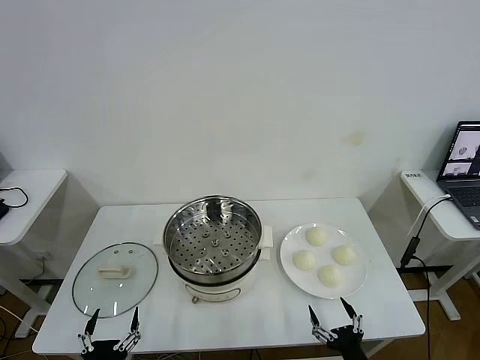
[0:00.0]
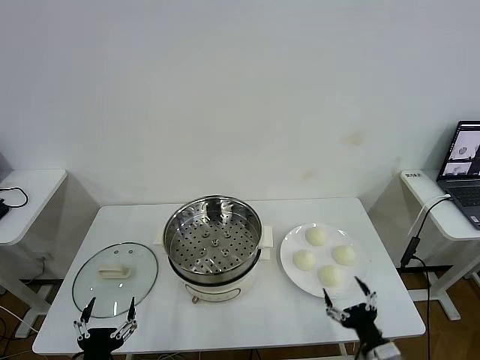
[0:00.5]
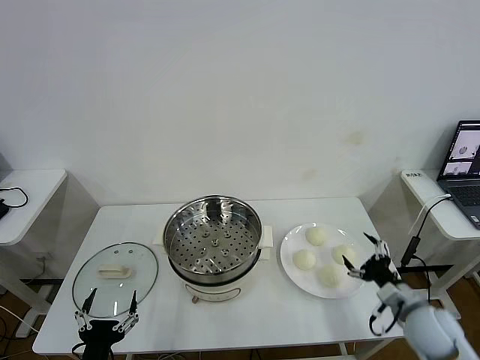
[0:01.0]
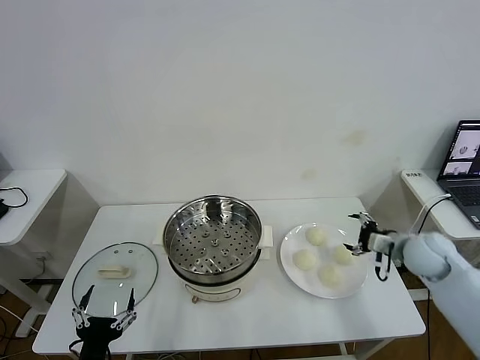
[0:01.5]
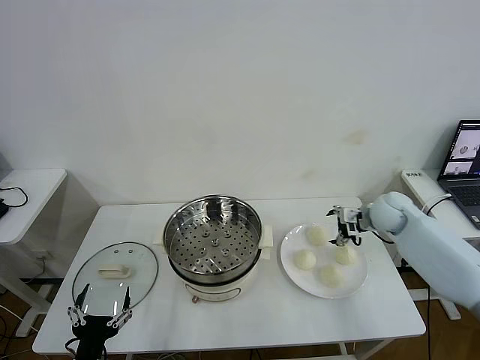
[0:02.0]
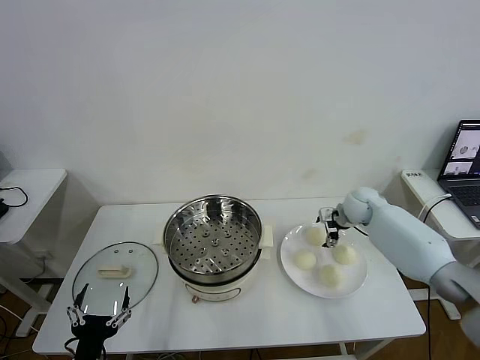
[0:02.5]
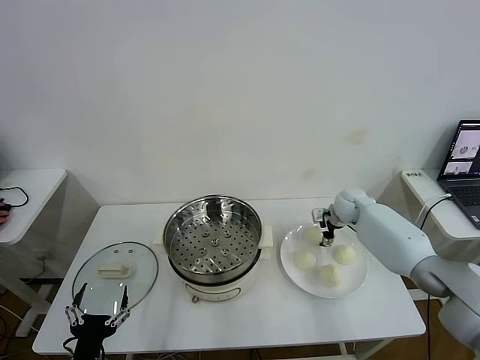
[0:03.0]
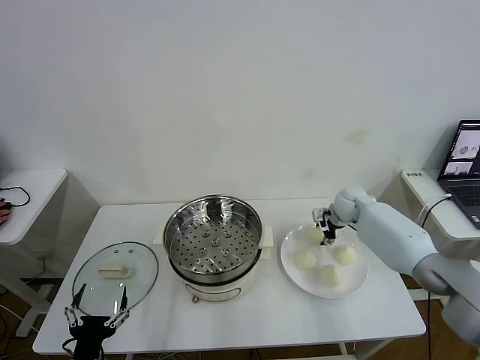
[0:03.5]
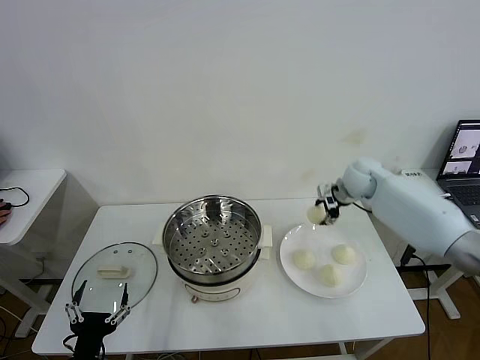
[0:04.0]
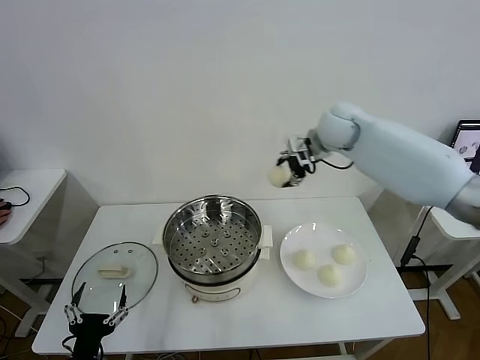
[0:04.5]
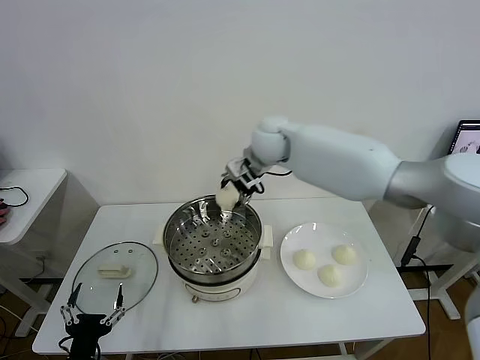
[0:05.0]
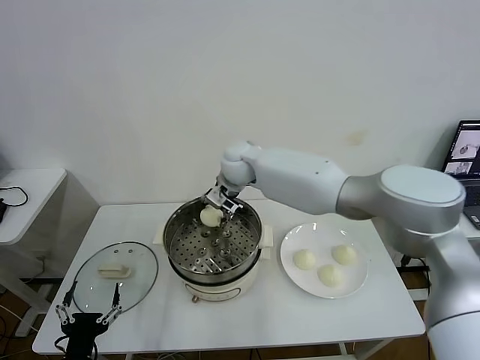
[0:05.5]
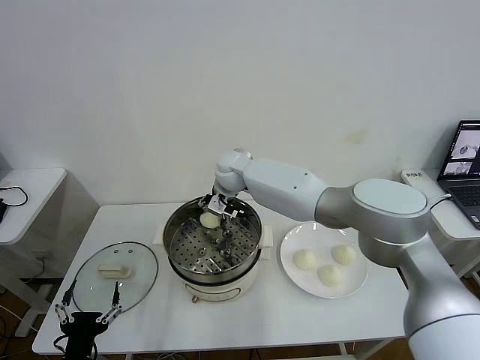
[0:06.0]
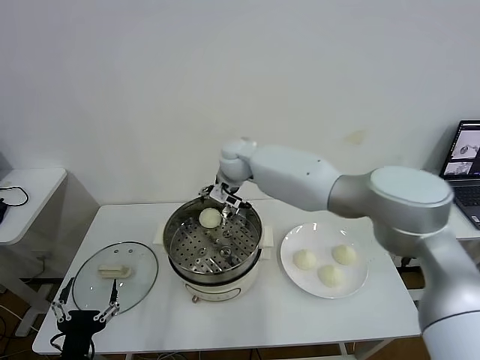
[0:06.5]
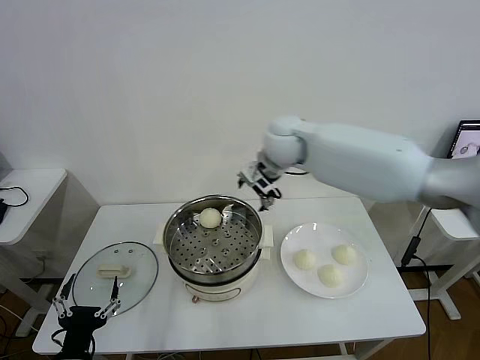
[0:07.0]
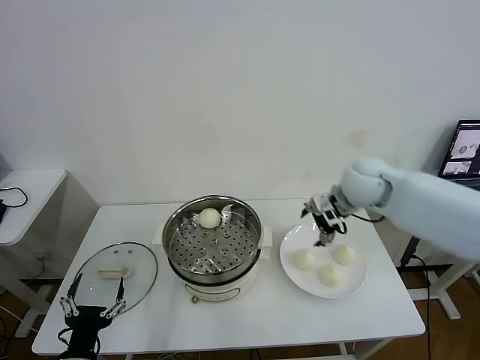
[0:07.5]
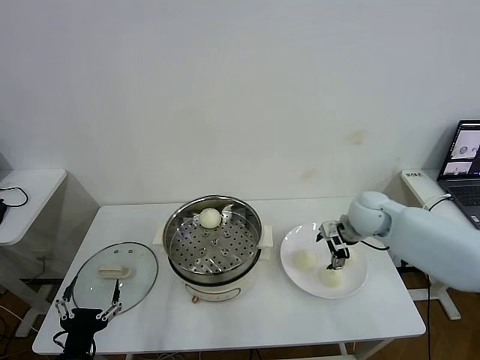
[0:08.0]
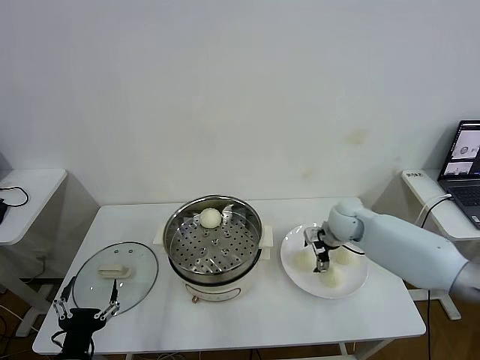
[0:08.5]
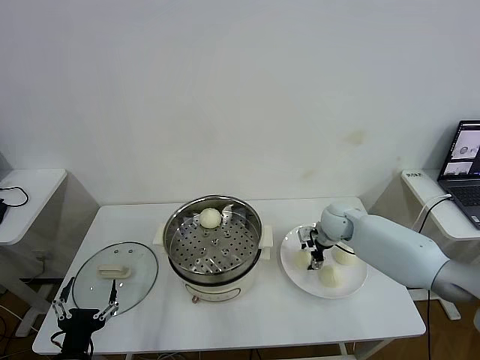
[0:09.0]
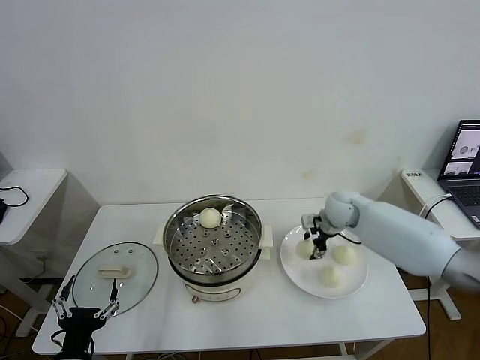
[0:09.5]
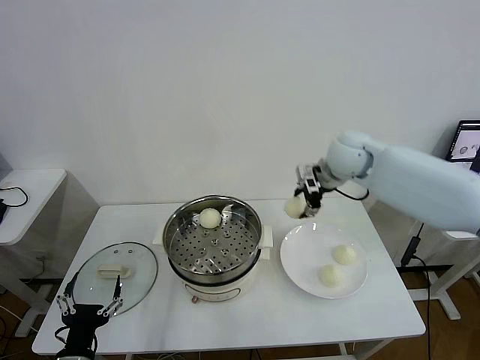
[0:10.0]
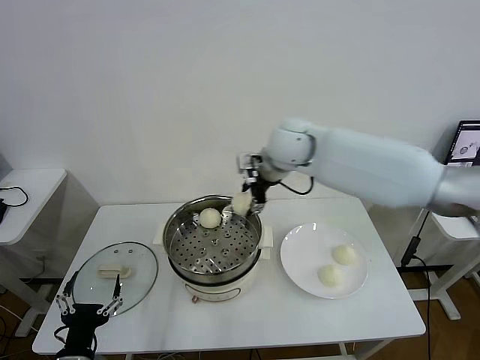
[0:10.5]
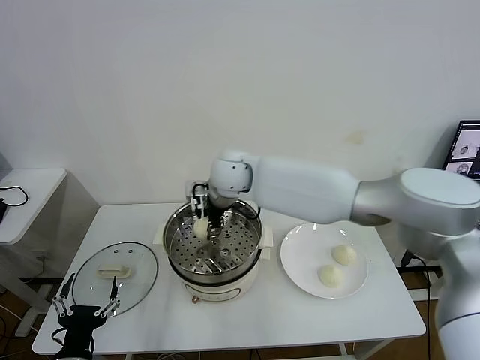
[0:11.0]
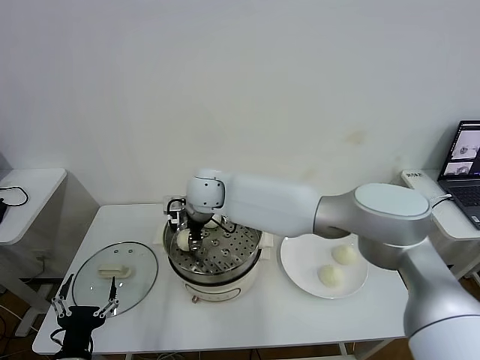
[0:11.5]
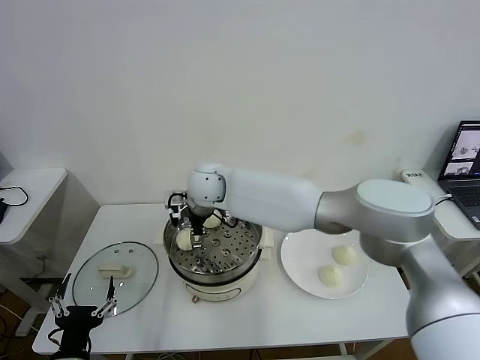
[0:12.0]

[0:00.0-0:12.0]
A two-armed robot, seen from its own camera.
Task of the whole recording: take steamed baozi put them in steamer then cover it.
Step, 0:00.0 to 0:03.0: Grasp the baozi in the plate with right gripper.
Step, 0:03.5 to 0:06.0: Place the baozi on the steamer with right gripper.
Step, 0:06.5 to 0:09.0: Grasp the baozi in the plate with right gripper.
0:02.0 to 0:04.0: The right gripper goes about 10 cm forward, to the left and upward, and closes up.
0:04.0 to 0:06.0: The right gripper travels to the left by approximately 30 cm.
0:06.0 to 0:08.0: The right gripper is displaced to the right by some 30 cm, and opens up.
0:08.0 to 0:10.0: The right gripper heads upward, to the left and forward, covering roughly 15 cm, and closes.
0:10.0 to 0:12.0: The right gripper moves to the left, roughly 30 cm, and opens.

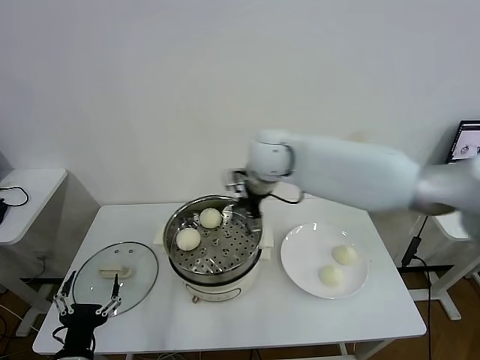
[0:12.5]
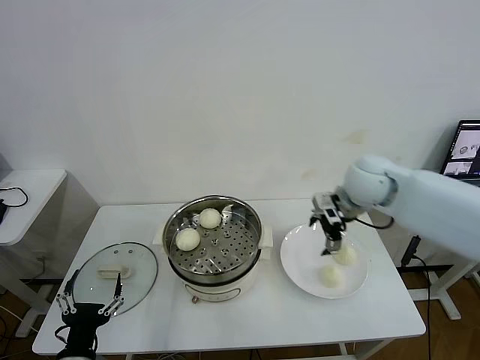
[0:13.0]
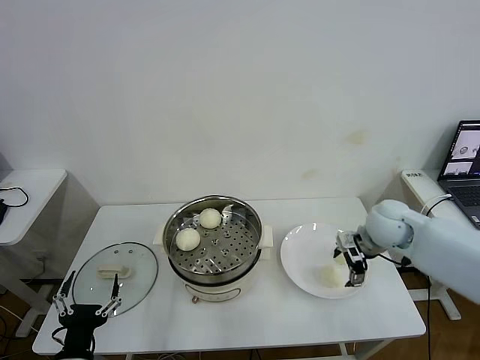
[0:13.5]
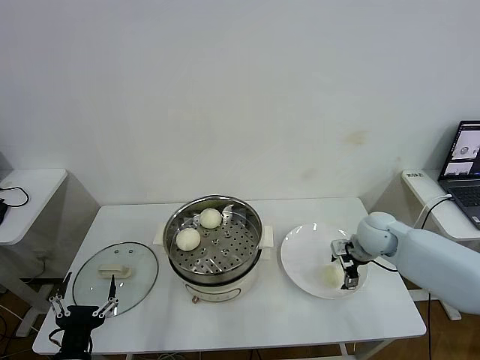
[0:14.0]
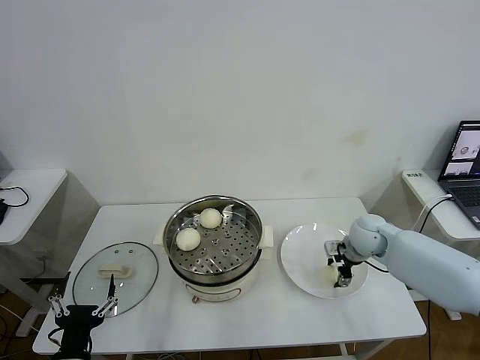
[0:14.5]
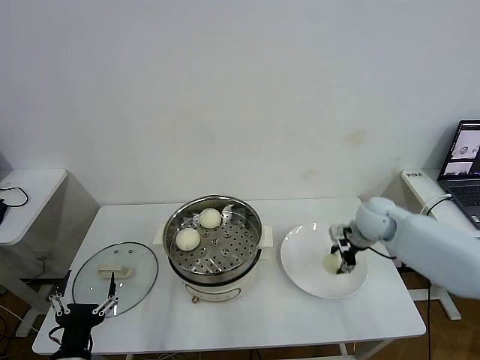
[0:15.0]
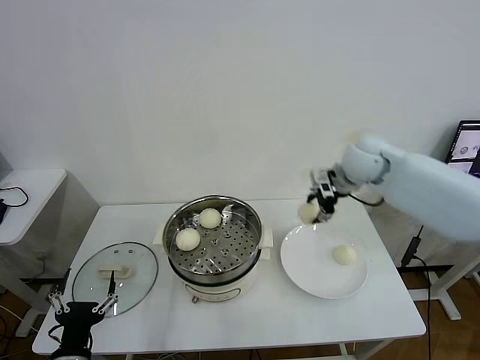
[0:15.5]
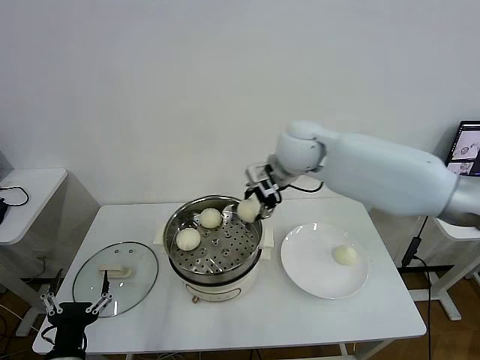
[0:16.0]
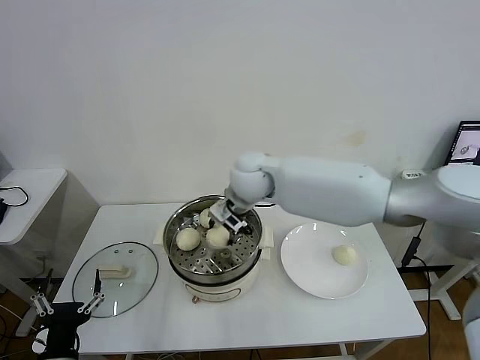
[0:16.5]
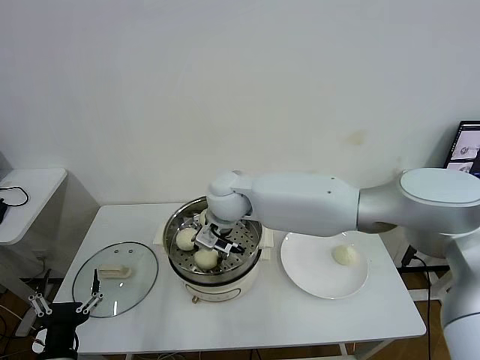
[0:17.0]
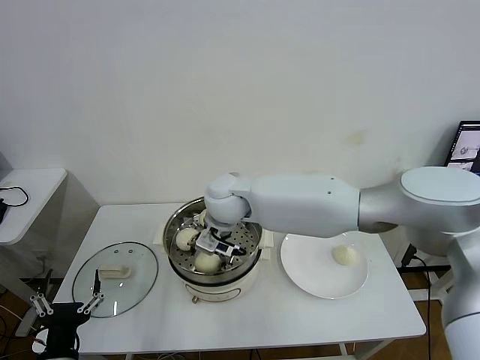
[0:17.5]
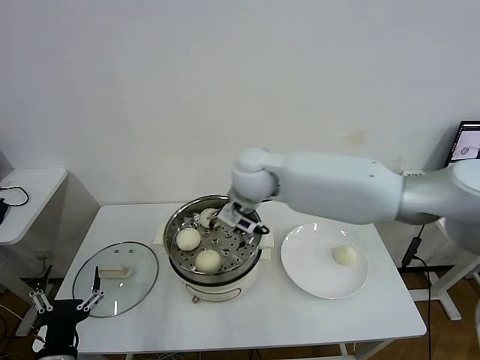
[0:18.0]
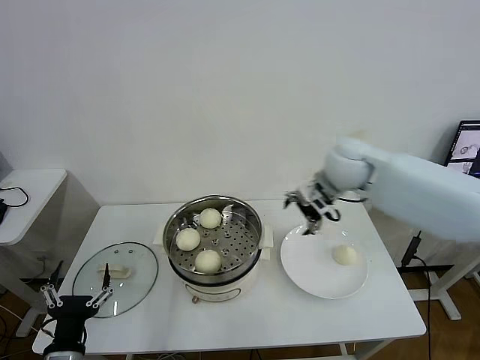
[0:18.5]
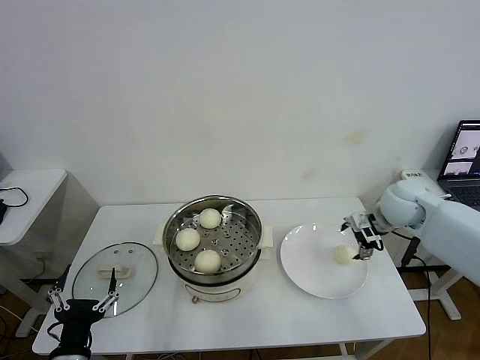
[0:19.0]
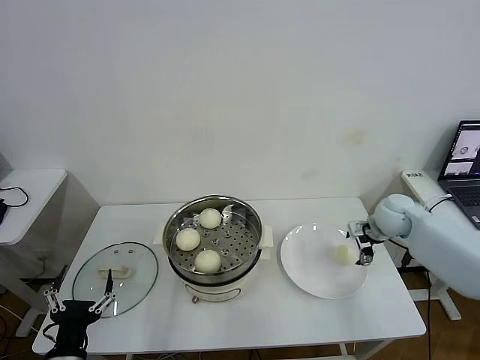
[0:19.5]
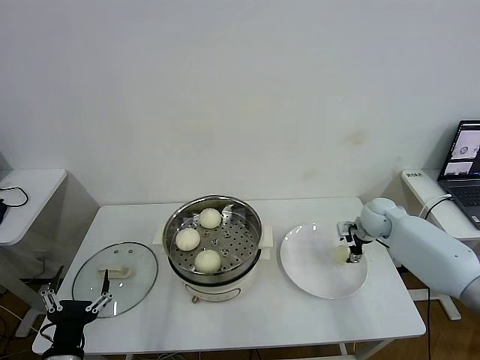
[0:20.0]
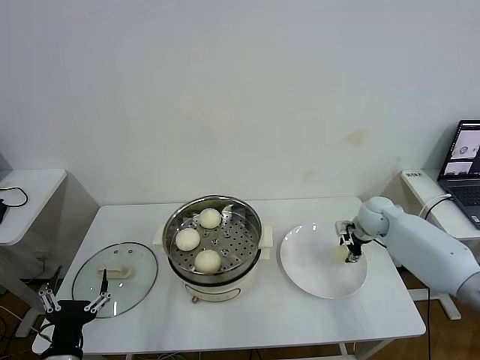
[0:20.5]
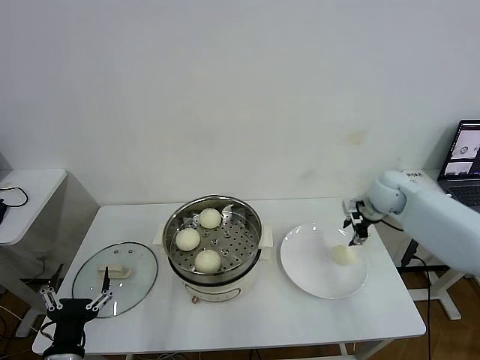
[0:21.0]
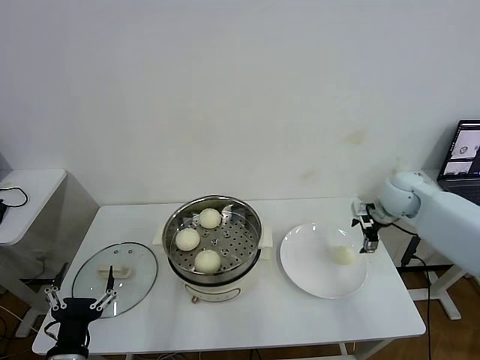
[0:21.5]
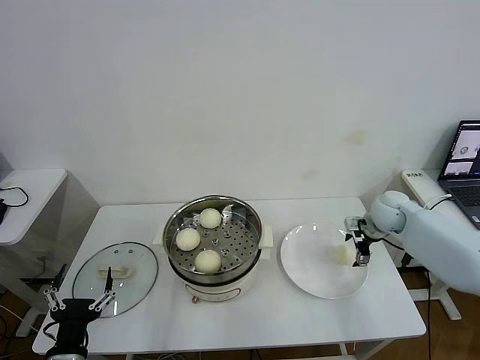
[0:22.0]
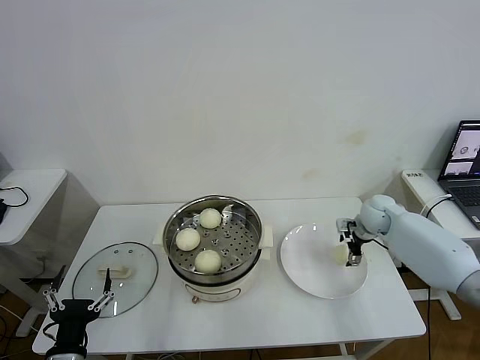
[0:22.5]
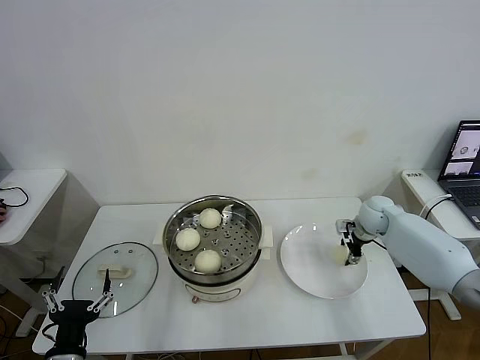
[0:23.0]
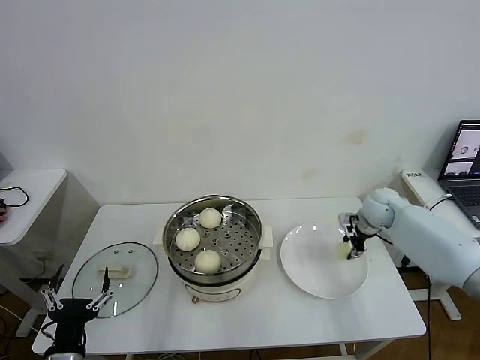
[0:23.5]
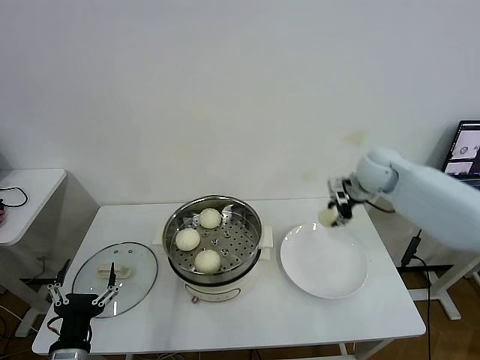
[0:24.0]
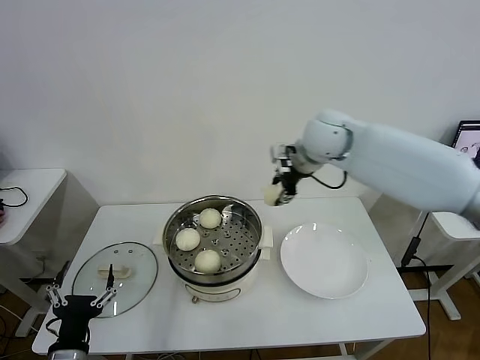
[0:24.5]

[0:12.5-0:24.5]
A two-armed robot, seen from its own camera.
Task of the whole recording: take steamed baozi put them in steamer then cover it.
Step, 0:12.5 to 0:14.5: Grasp the baozi in the plate with right gripper.
Step, 0:15.0 to 0:17.5: Place the baozi on the steamer with right gripper.
Step, 0:18.0 to 0:23.0: Grasp the baozi in the plate with right gripper.
0:12.5 to 0:14.5: The right gripper travels to the right and downward by roughly 35 cm, and closes.
0:14.5 to 0:16.5: The right gripper heads to the left and upward, covering about 35 cm.
0:16.5 to 0:18.5: The right gripper shifts approximately 20 cm to the right, and opens.
0:18.5 to 0:20.5: The right gripper moves downward and to the right, some 25 cm, and closes its fingers.
0:20.5 to 0:22.5: The right gripper moves roughly 10 cm upward and comes back, and opens its fingers.
0:22.5 to 0:24.5: The right gripper travels upward and to the left by some 30 cm, and closes.

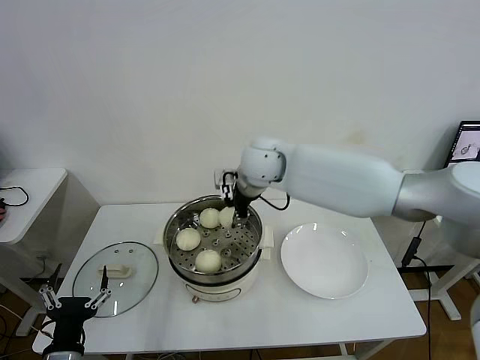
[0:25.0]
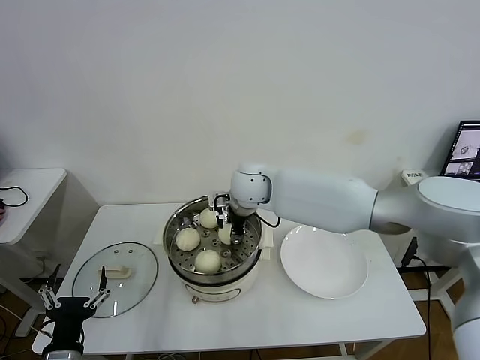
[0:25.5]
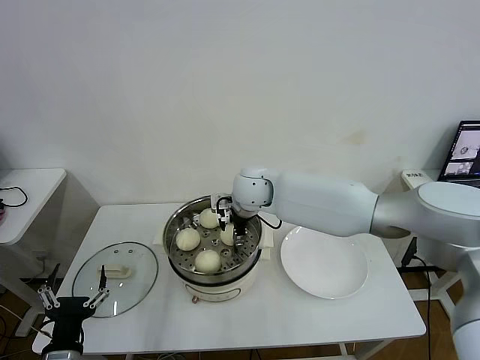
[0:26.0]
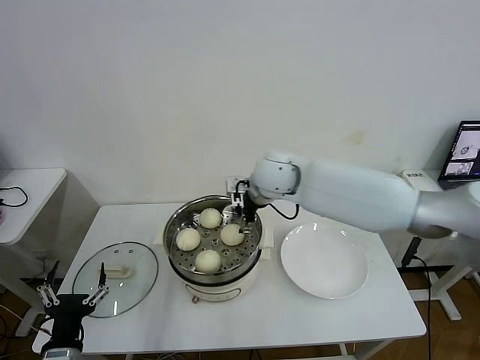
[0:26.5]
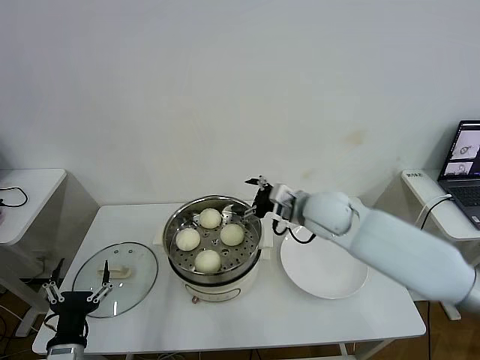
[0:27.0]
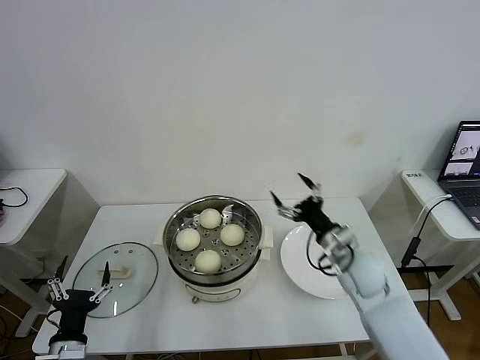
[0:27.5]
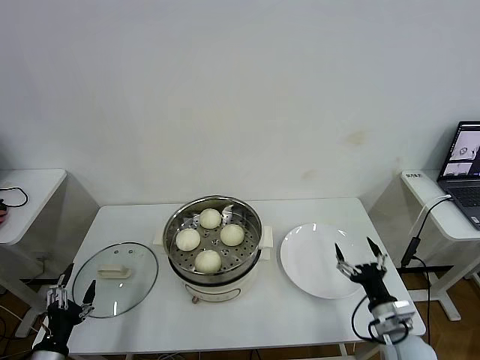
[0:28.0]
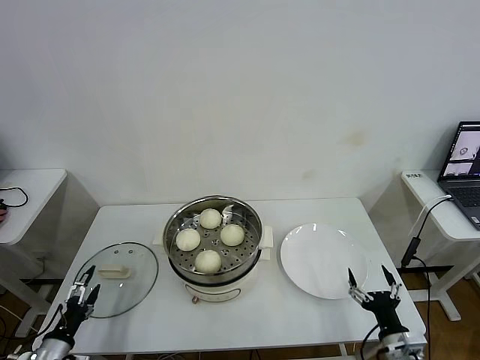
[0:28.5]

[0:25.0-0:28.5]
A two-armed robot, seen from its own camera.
Task of the whole recording: take steamed baozi put them in steamer then cover it.
0:25.0 to 0:27.0: The right gripper heads to the right, backward and downward, covering roughly 15 cm, and opens up.
0:27.0 to 0:28.5: The right gripper goes approximately 40 cm backward, downward and to the right; the left gripper travels to the left and downward by approximately 15 cm.
